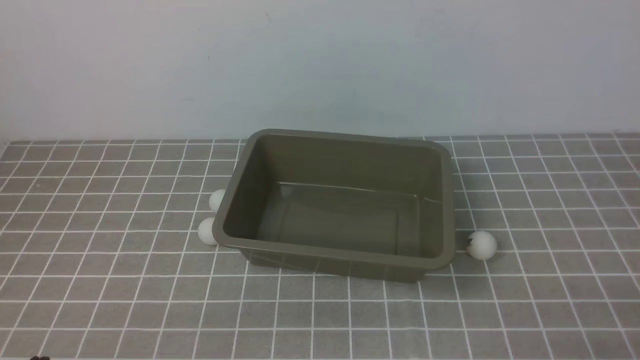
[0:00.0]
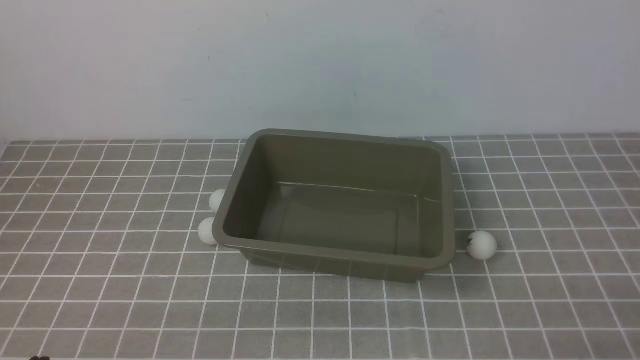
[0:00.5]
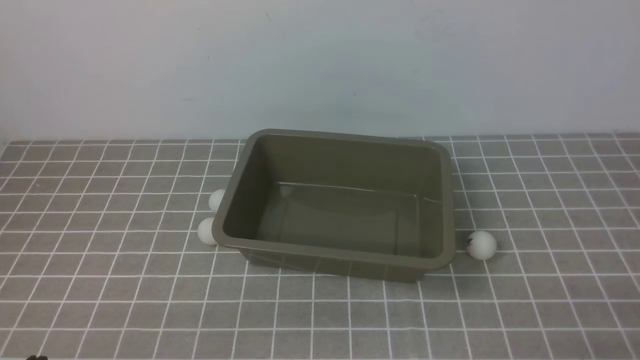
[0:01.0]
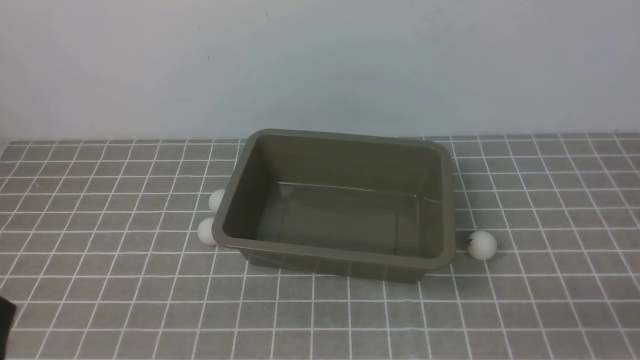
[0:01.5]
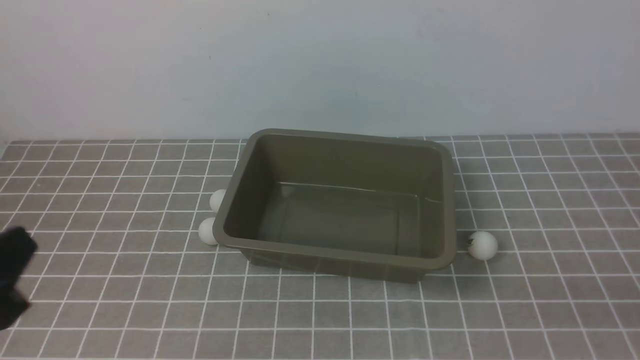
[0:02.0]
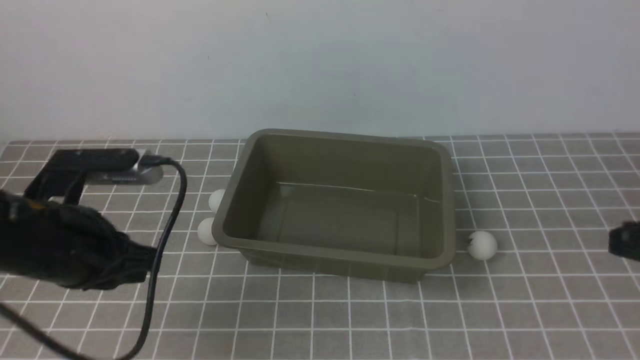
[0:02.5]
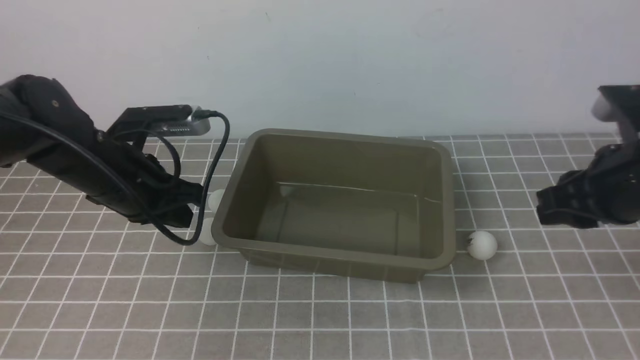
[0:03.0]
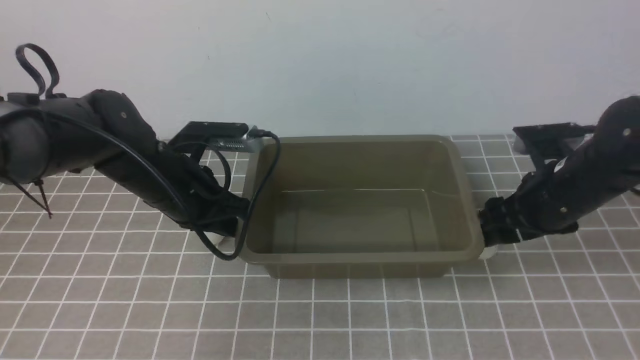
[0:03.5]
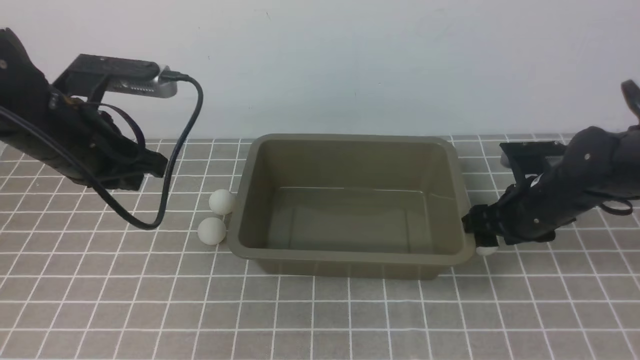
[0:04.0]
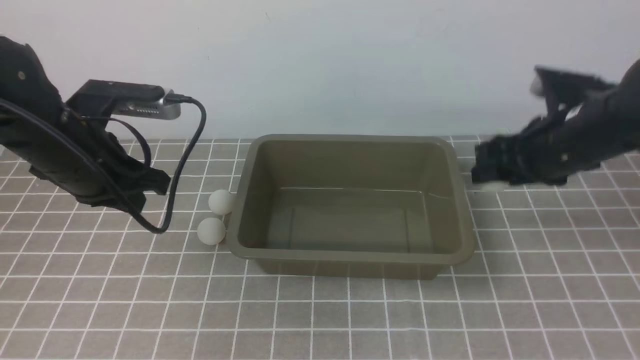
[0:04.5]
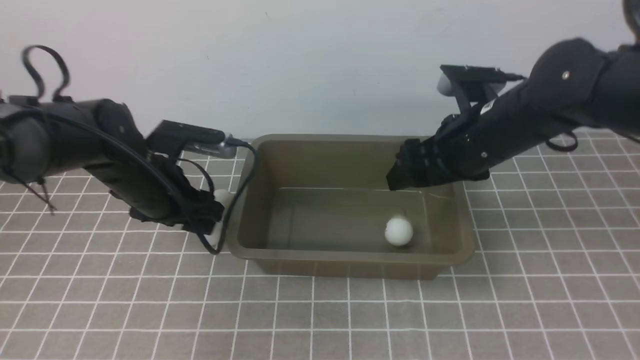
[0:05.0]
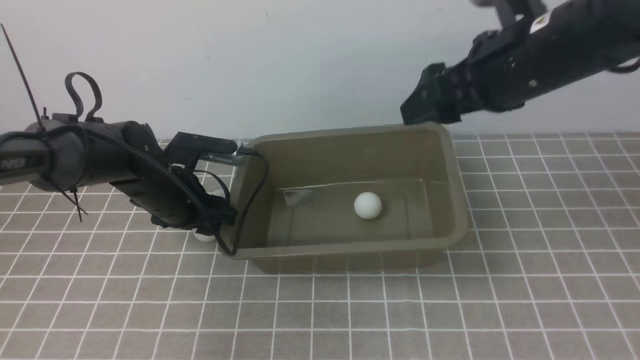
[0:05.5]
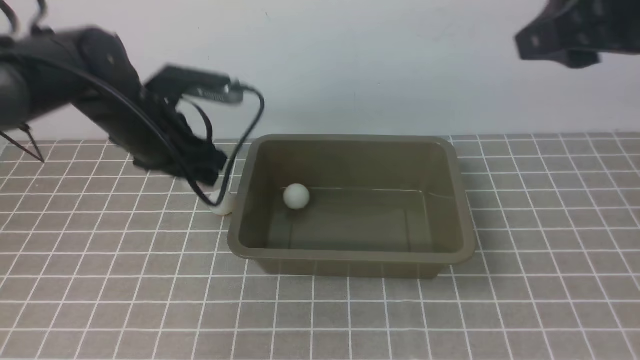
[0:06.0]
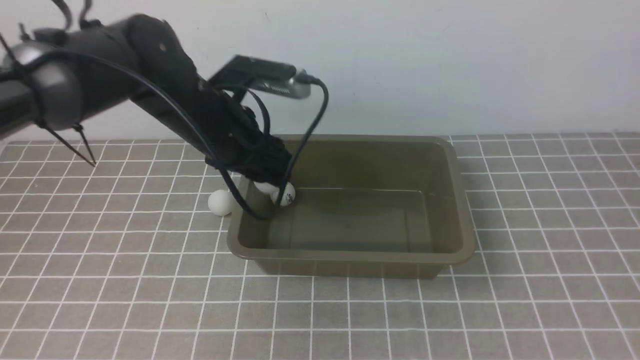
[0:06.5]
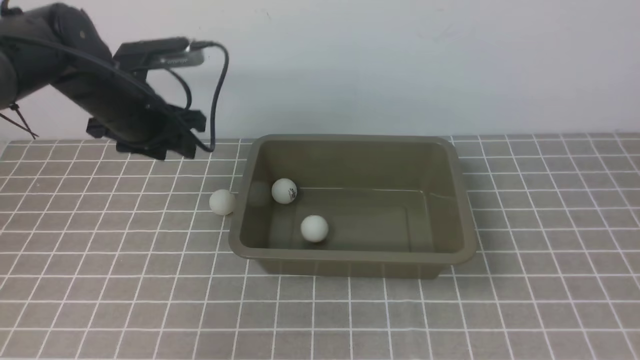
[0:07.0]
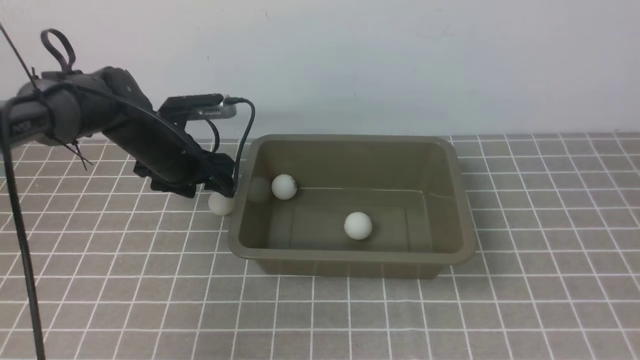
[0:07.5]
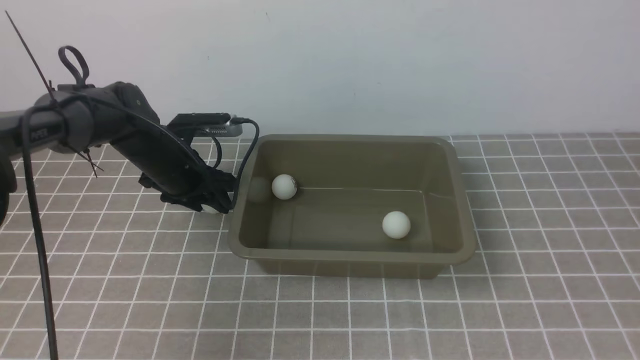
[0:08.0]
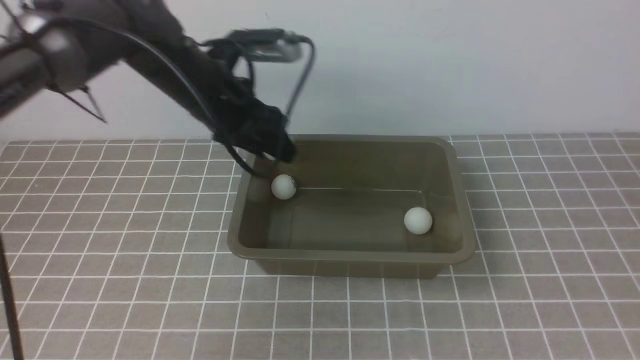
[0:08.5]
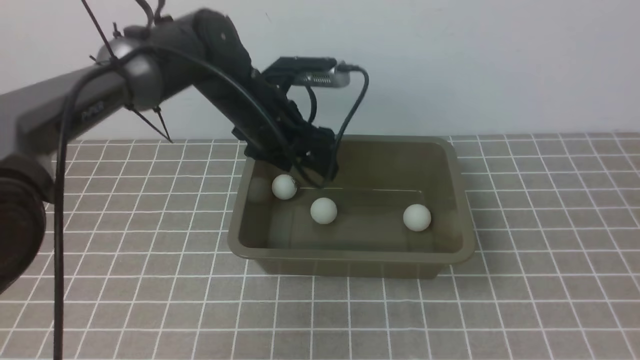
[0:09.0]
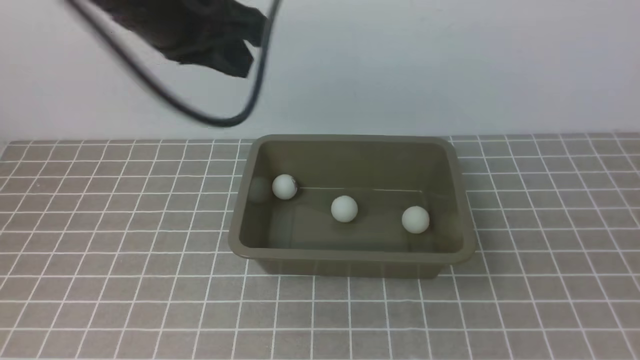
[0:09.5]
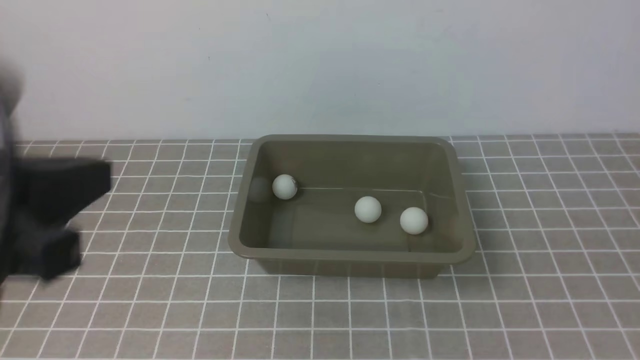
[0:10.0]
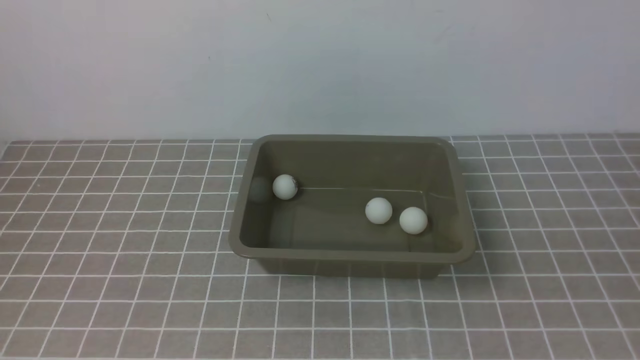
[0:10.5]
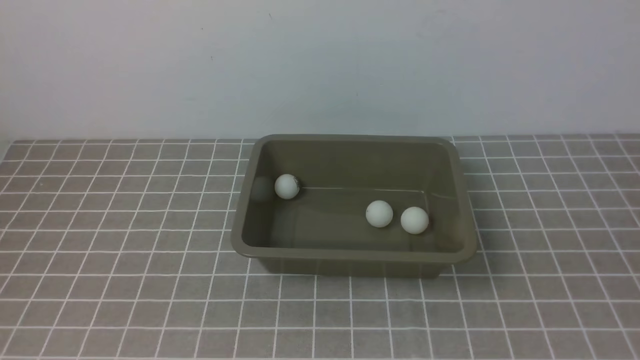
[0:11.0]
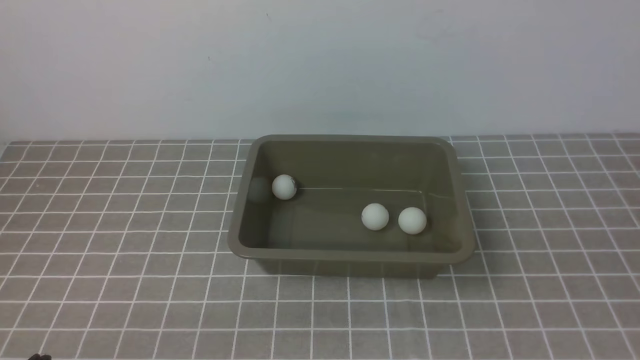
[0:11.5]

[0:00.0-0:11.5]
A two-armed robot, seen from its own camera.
Step, 0:00.0 to 0:04.0: use the right arm to clamp the table tennis ball closest to it.
Step, 0:04.5 to 0:06.0: use the left arm to clamp the table tennis ball closest to it.
Step, 0:07.0 to 0:08.0: use the left arm to clamp the table tennis ball closest to it.
0:02.0 to 0:04.0: Both grippers travel together forward, about 25 cm. The right gripper opens up.
0:04.0 to 0:06.0: The left gripper shifts about 10 cm forward and downward, and opens its fingers; the right gripper goes roughly 25 cm upward.
0:06.0 to 0:07.5: The left gripper goes approximately 5 cm forward; the right gripper goes some 20 cm backward and to the right, and closes up.
0:07.5 to 0:09.5: The right gripper shifts approximately 15 cm backward and downward. Meanwhile the left gripper moves upward and backward, about 25 cm, and closes its fingers.
0:09.5 to 0:11.5: The left gripper shifts some 40 cm backward, downward and to the left.
